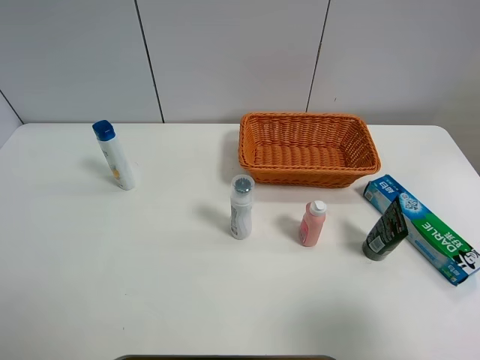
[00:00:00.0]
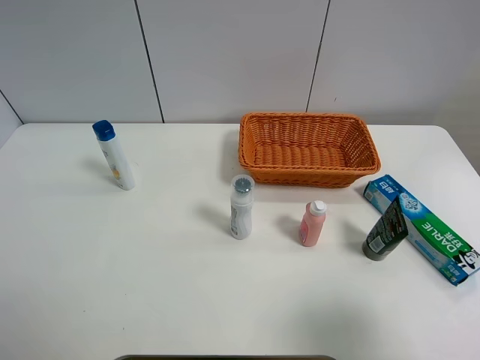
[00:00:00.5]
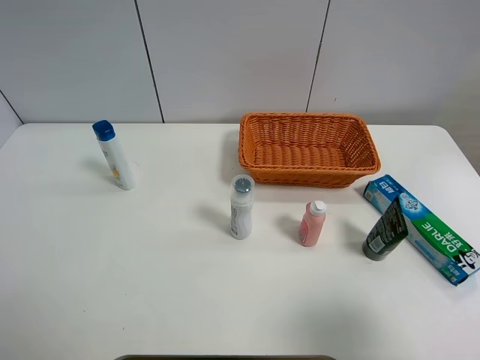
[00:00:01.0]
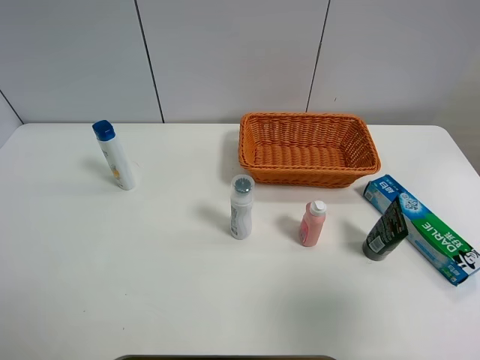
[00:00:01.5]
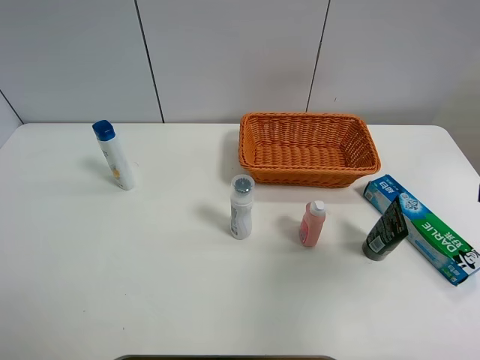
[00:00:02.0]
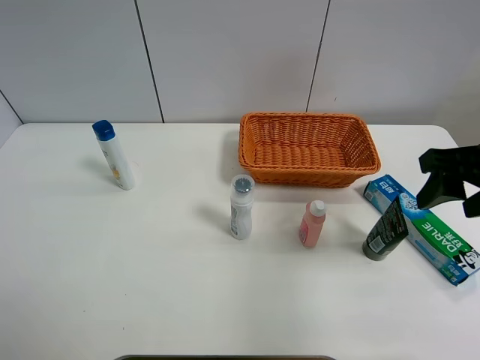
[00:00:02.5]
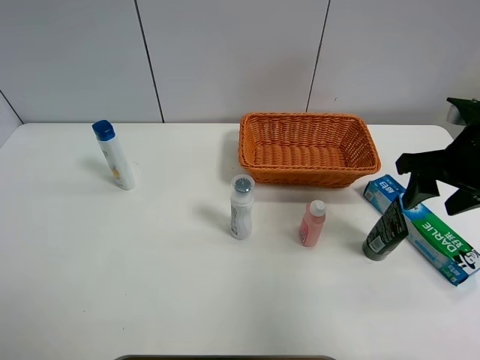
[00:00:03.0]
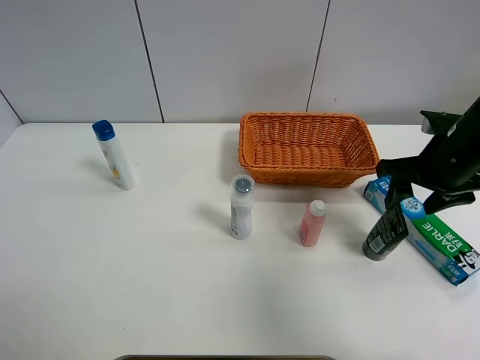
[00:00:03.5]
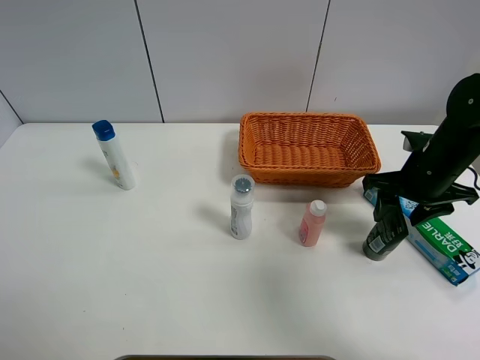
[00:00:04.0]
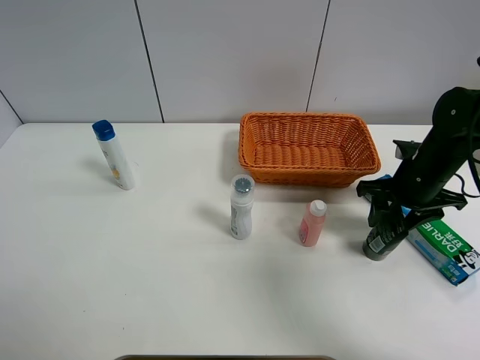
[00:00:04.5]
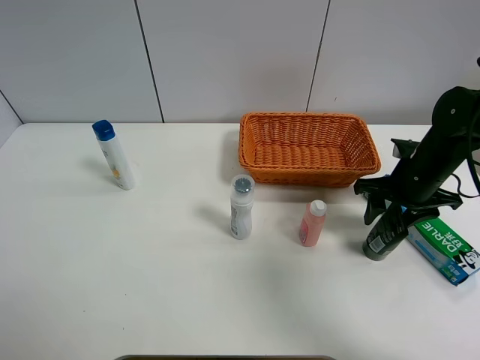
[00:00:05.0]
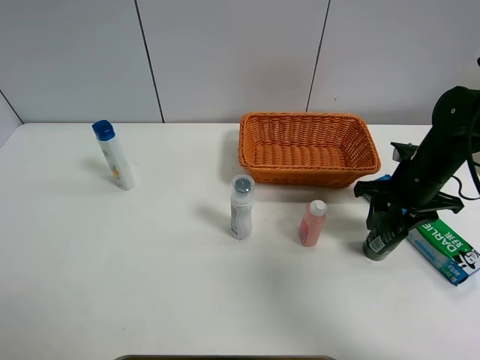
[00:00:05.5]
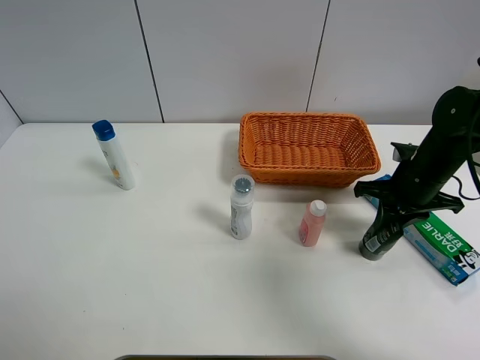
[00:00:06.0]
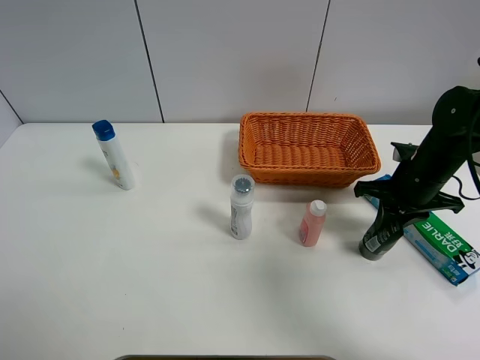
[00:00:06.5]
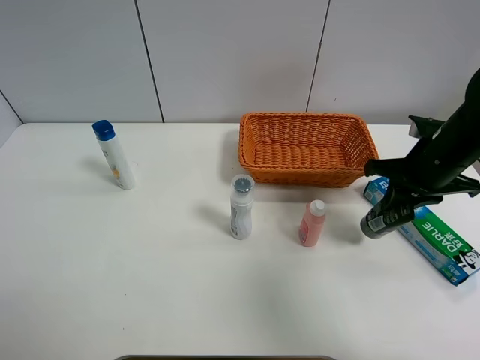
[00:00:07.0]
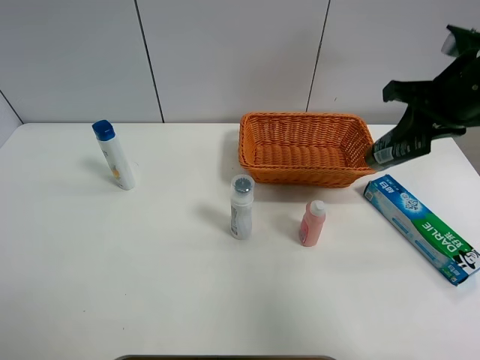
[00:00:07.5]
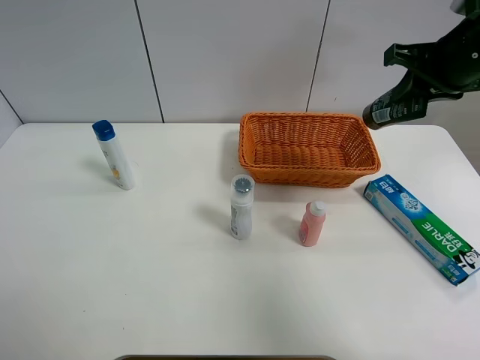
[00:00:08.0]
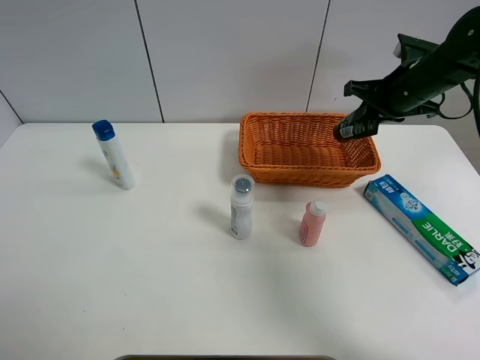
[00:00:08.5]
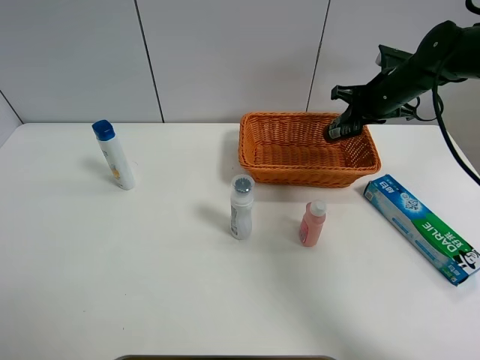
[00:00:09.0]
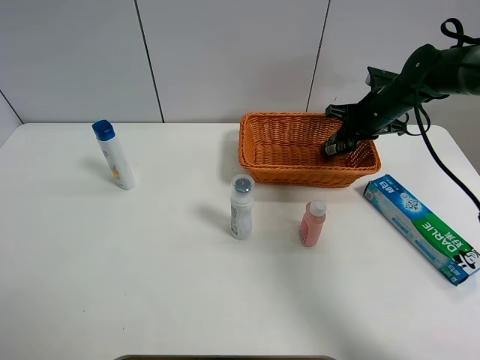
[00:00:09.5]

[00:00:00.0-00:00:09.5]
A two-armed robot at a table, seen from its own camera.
Task of the whole recording: Place the object closest to the toothpaste in the basket.
Step, 00:00:00.0 to 00:00:06.0: Grasp the soft facial cleanser with right gripper.
00:00:00.0 to 00:00:02.0: The right gripper goes approximately 15 cm forward and upward.
00:00:02.0 to 00:00:04.0: The right gripper moves forward and downward, roughly 25 cm.
00:00:04.0 to 00:00:05.5: The grippers move only a little.
00:00:05.5 to 00:00:07.5: The right gripper is displaced upward by roughly 15 cm, and closes its fingers.
00:00:07.5 to 00:00:09.5: The right gripper travels forward and downward by roughly 20 cm.

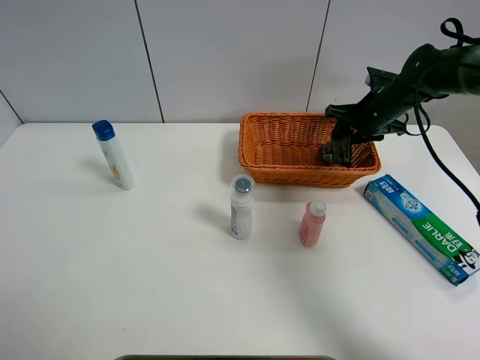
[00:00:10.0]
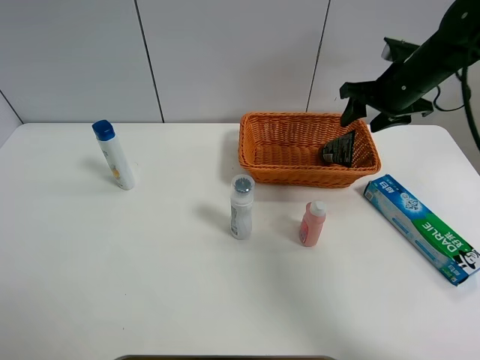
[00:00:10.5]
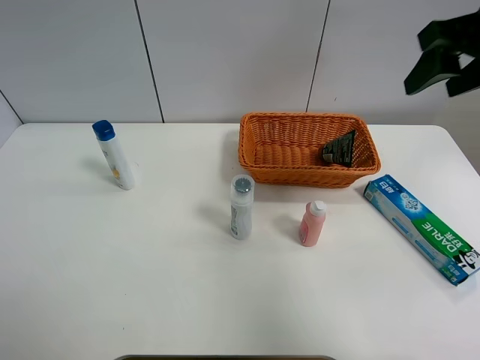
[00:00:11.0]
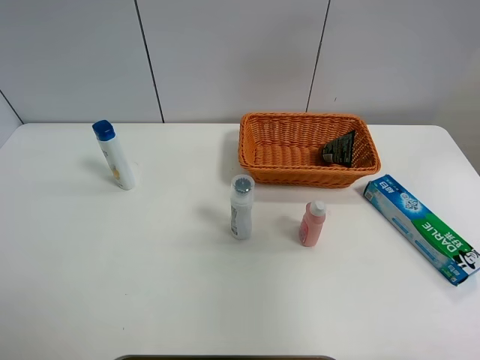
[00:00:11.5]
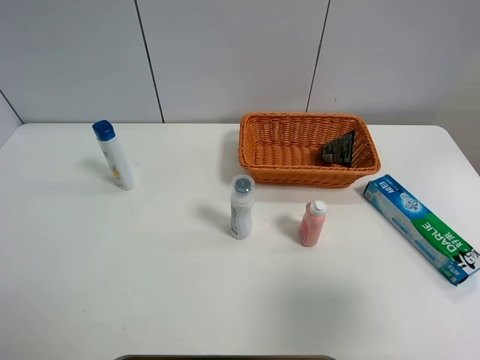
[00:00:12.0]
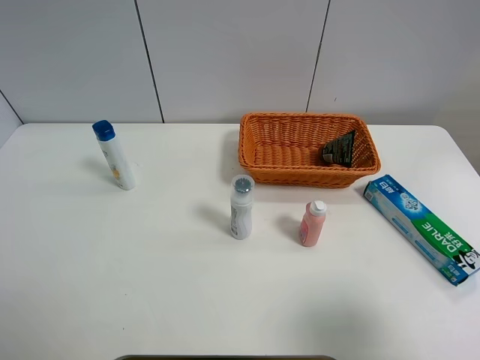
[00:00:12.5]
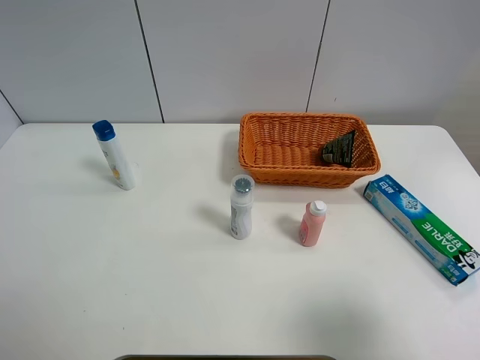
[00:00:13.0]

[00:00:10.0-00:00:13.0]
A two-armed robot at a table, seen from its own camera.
Task of the whole recording: Place the object closest to the toothpaste in the basket.
00:00:10.0 to 00:00:11.5: The right gripper travels backward and upward by about 40 cm.
00:00:11.5 to 00:00:13.0: The right gripper is displaced downward and backward by approximately 20 cm.
